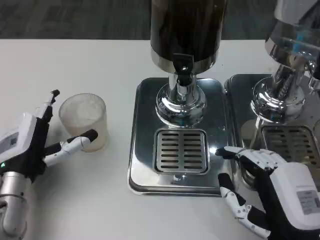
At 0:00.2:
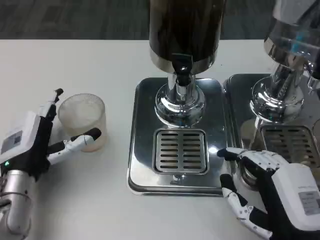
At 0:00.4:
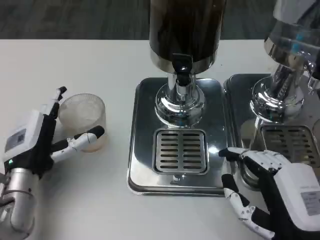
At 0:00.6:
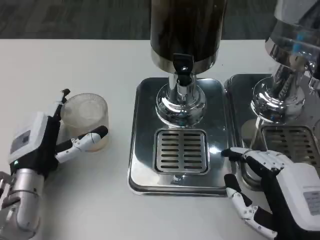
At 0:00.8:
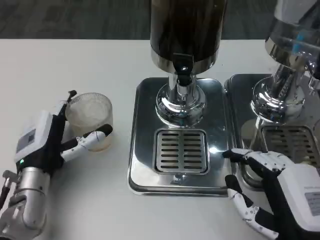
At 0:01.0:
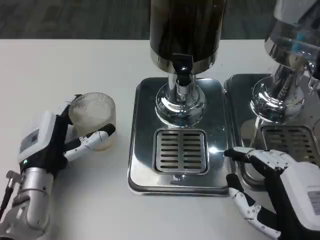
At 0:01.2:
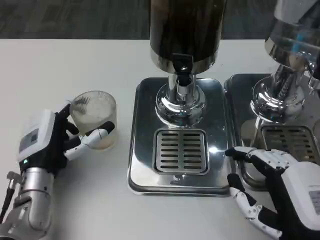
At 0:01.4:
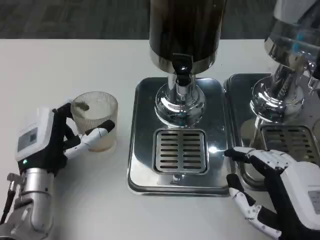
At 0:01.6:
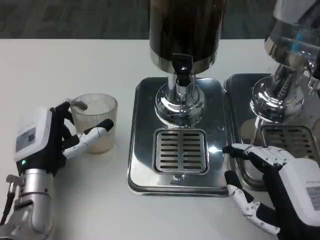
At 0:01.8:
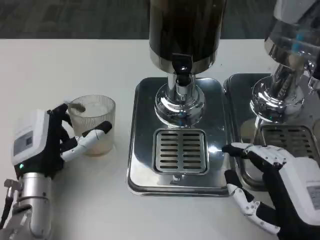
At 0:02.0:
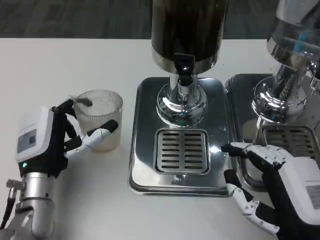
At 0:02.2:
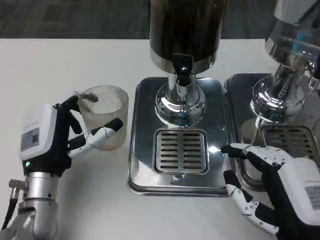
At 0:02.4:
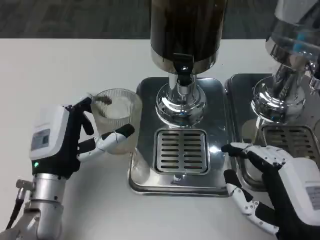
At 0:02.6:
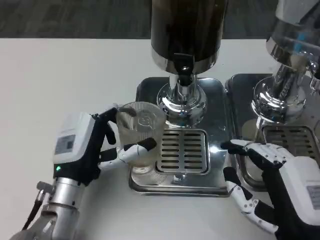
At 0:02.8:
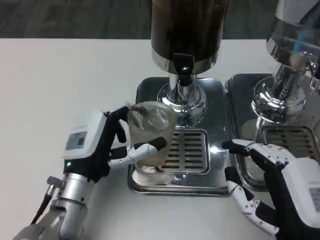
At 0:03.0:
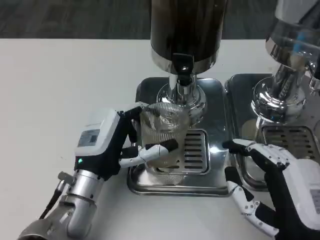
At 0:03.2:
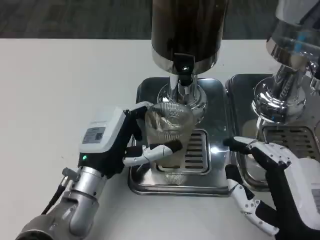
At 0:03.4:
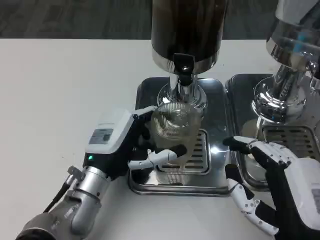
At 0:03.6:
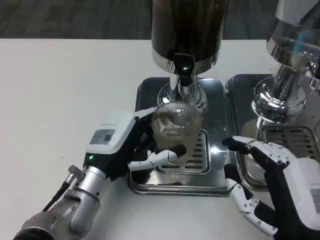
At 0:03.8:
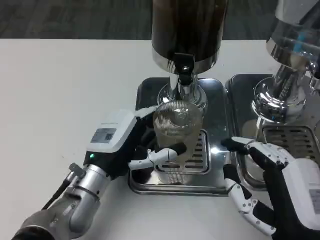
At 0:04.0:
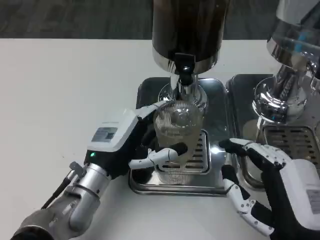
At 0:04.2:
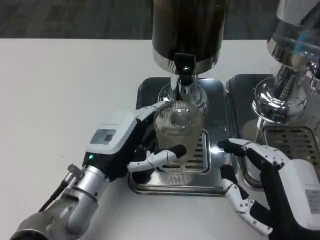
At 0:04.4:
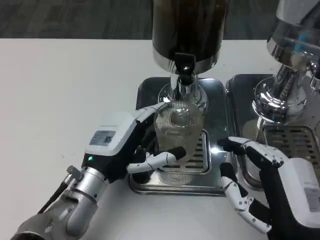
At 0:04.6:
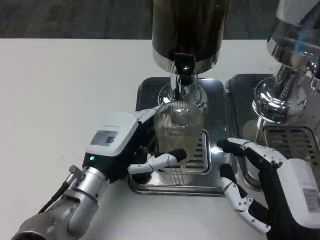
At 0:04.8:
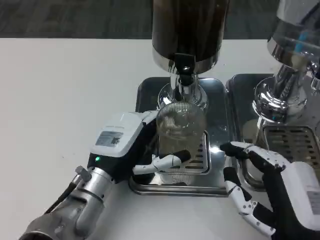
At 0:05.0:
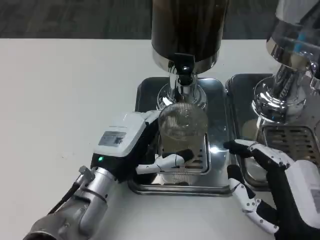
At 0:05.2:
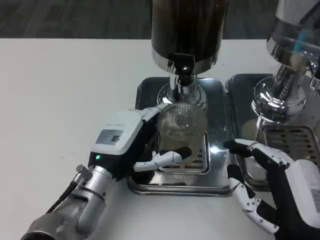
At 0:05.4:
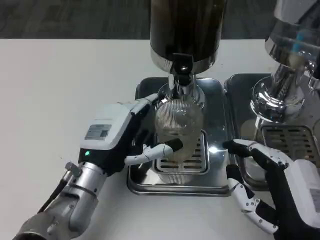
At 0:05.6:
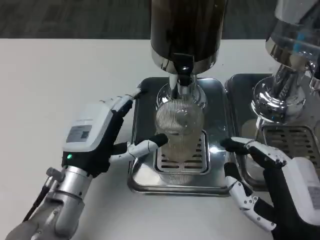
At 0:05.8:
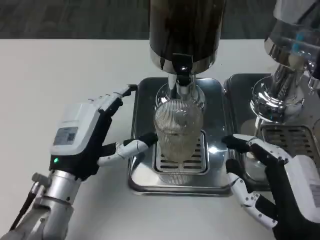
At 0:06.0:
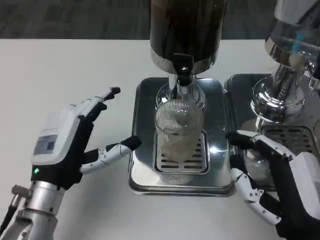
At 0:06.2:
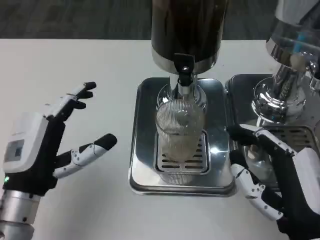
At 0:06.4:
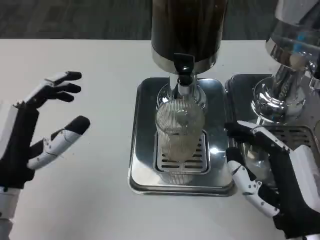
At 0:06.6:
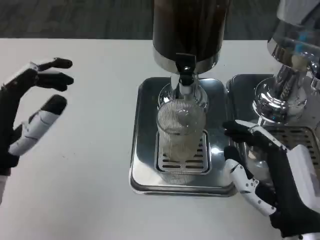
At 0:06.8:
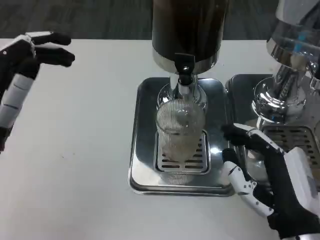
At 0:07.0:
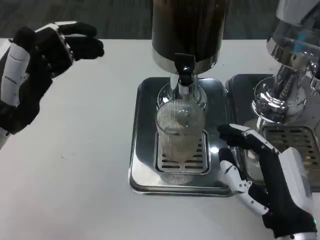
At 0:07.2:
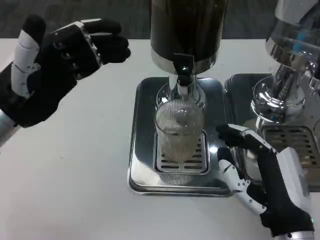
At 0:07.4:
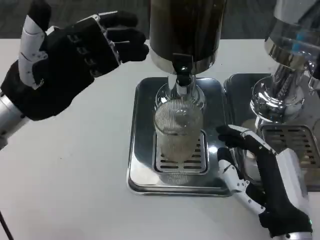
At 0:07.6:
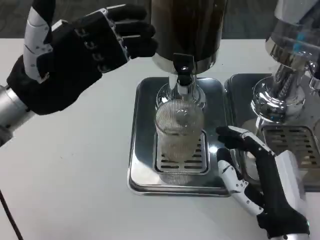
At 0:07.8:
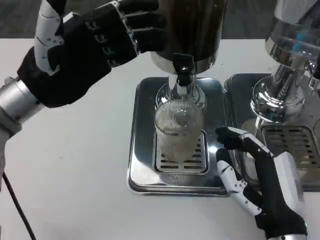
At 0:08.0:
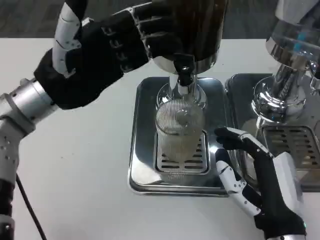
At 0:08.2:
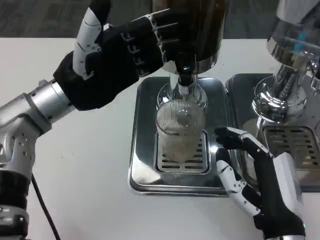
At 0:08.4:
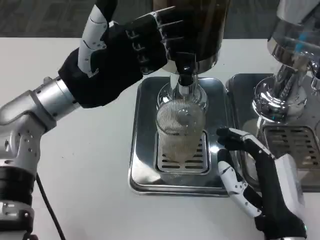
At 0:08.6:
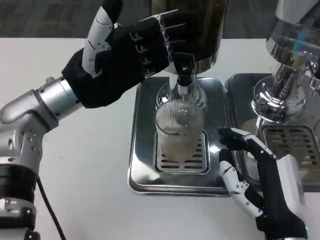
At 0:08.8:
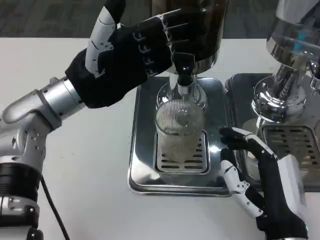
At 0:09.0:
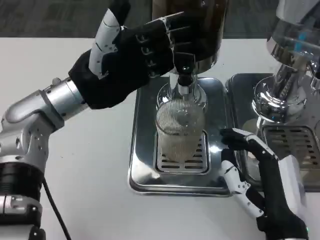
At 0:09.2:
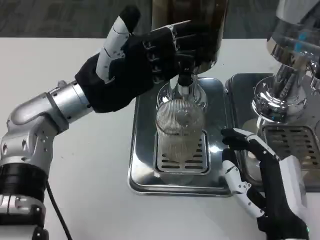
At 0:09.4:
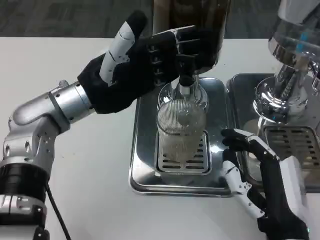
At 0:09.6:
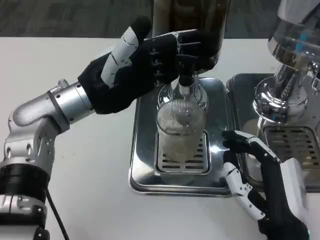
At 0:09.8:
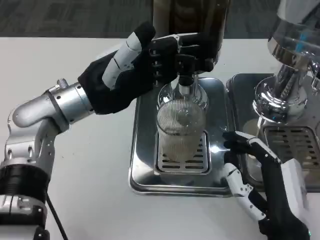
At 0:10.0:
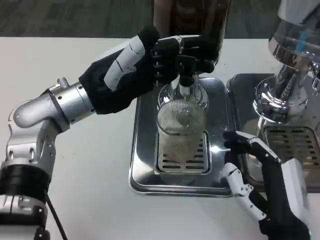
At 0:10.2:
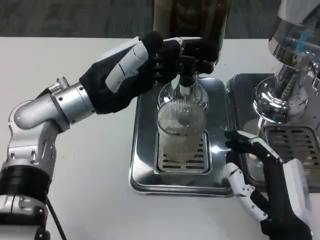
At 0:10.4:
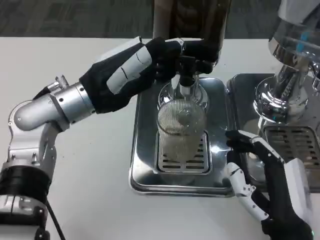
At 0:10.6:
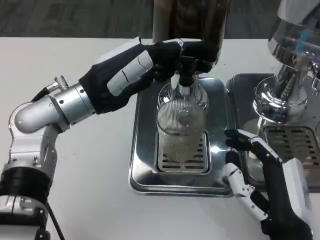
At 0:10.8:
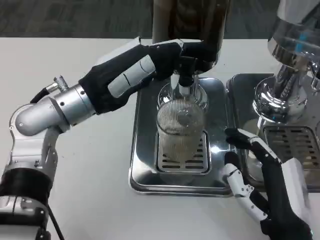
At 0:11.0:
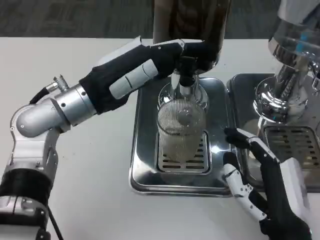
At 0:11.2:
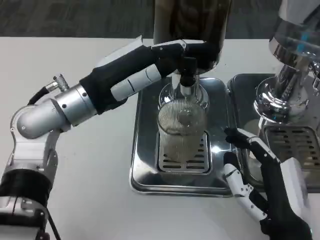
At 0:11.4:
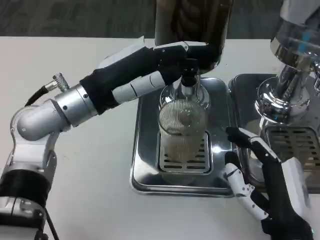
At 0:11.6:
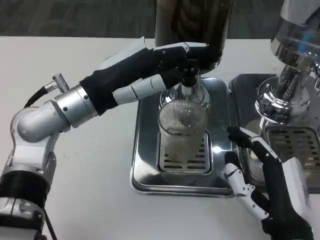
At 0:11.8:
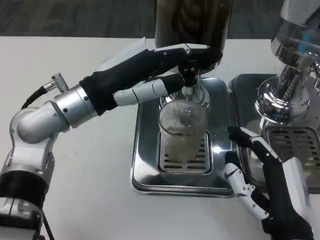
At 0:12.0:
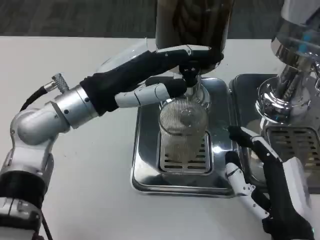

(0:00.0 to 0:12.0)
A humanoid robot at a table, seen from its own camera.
Task of the whole recording: Grasp the cup under the faucet to collect the drink, then remove the cup.
0:01.6 - 0:03.0: The left hand moves to the right, some 5 cm.
0:03.0 - 0:04.4: The hands make only small movements.
0:04.4 - 0:06.0: The left hand changes place by about 5 cm.
0:06.0 - 0:07.6: The left hand is displaced upward and forward by approximately 15 cm.
0:07.6 - 0:09.0: The left hand is displaced to the right by about 5 cm.

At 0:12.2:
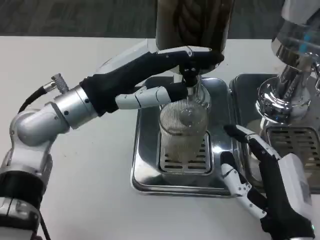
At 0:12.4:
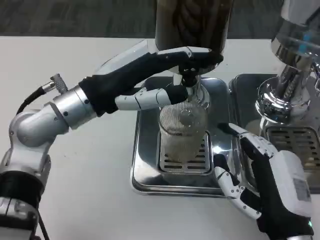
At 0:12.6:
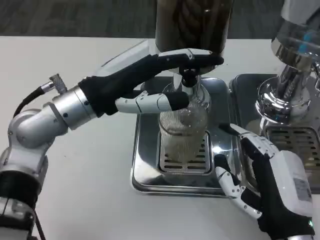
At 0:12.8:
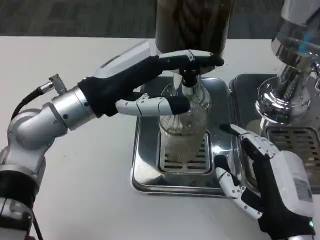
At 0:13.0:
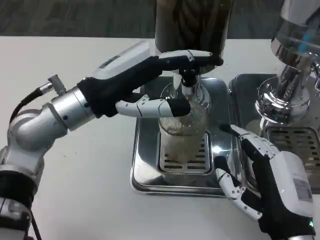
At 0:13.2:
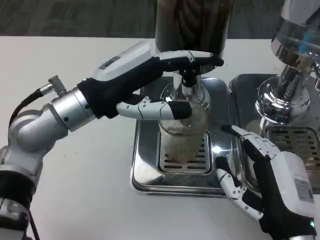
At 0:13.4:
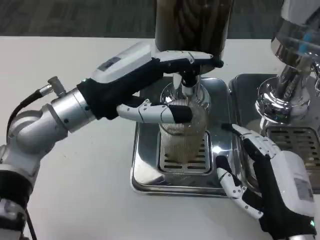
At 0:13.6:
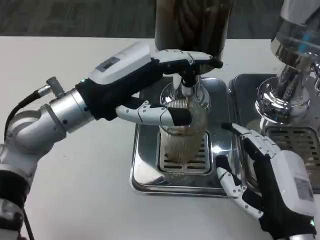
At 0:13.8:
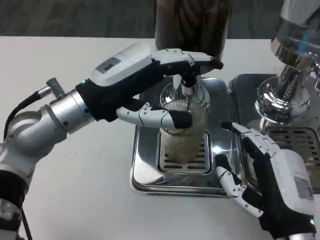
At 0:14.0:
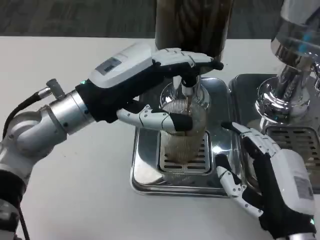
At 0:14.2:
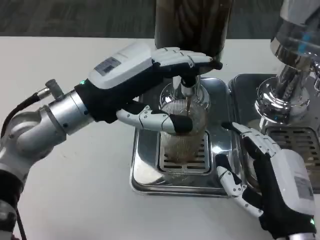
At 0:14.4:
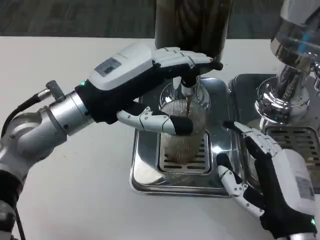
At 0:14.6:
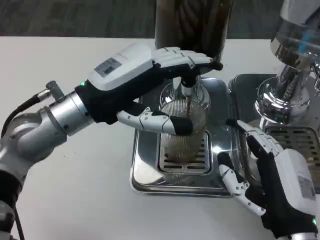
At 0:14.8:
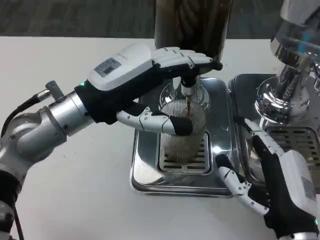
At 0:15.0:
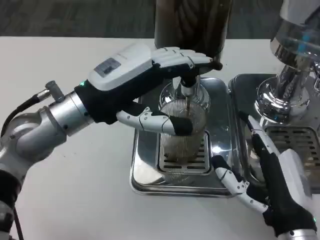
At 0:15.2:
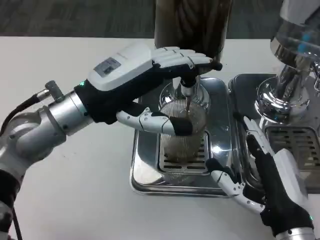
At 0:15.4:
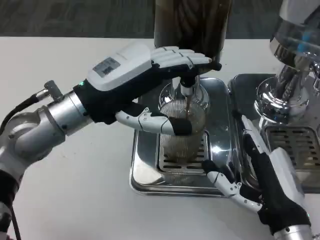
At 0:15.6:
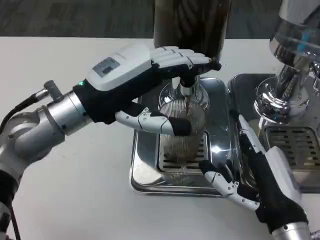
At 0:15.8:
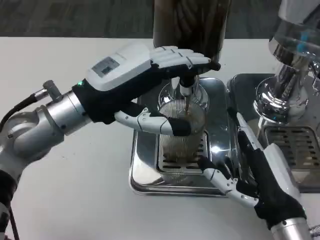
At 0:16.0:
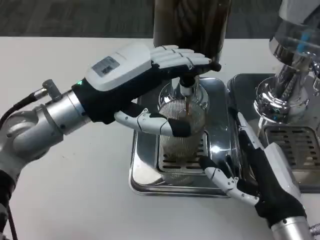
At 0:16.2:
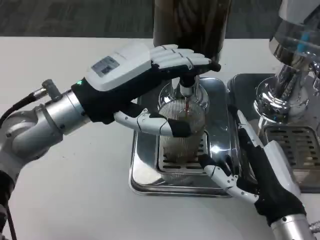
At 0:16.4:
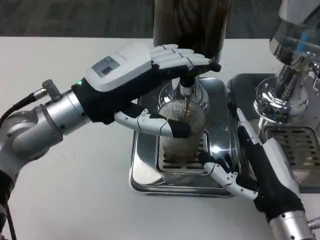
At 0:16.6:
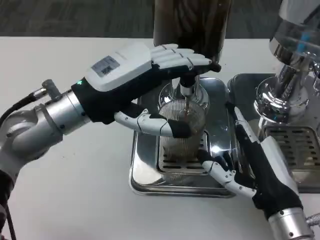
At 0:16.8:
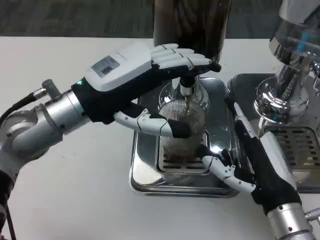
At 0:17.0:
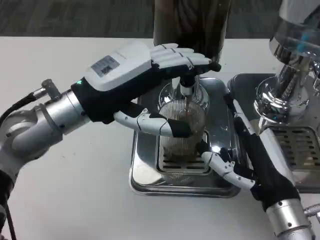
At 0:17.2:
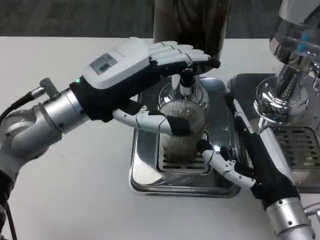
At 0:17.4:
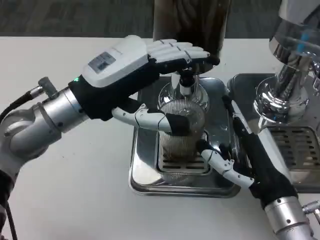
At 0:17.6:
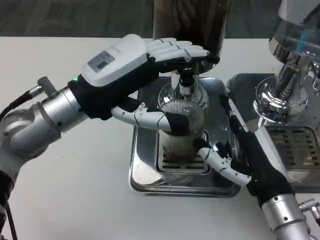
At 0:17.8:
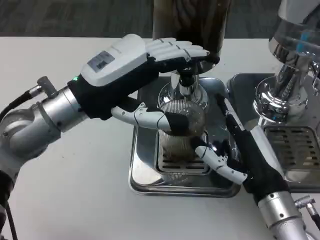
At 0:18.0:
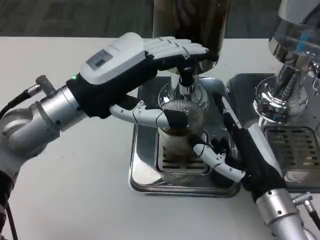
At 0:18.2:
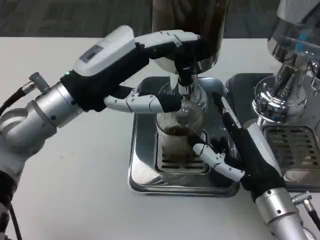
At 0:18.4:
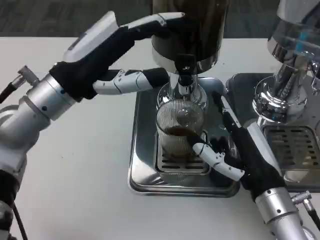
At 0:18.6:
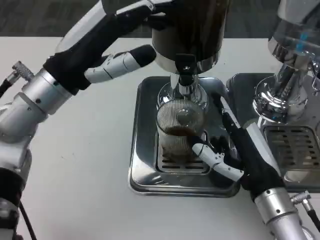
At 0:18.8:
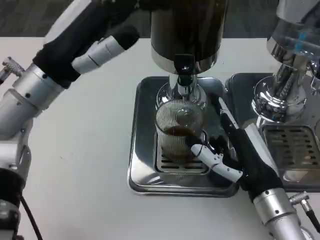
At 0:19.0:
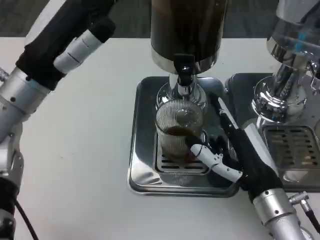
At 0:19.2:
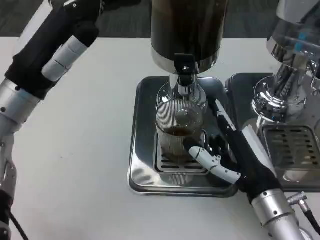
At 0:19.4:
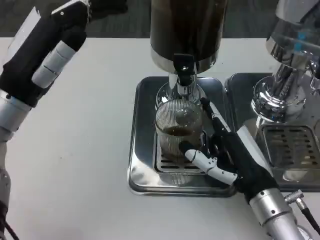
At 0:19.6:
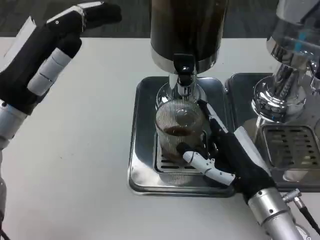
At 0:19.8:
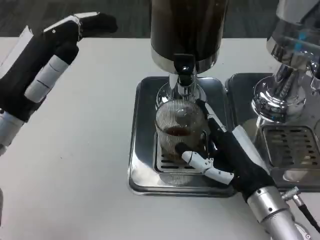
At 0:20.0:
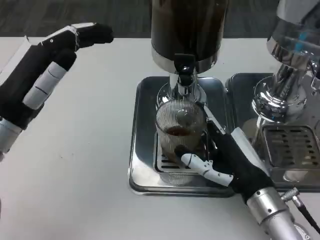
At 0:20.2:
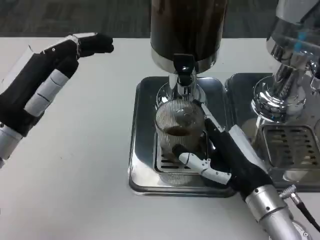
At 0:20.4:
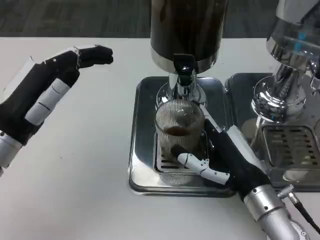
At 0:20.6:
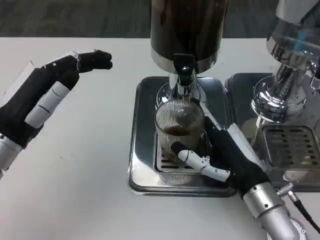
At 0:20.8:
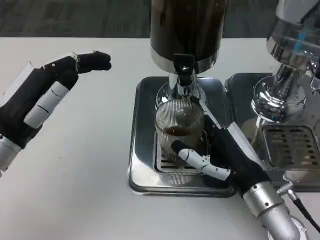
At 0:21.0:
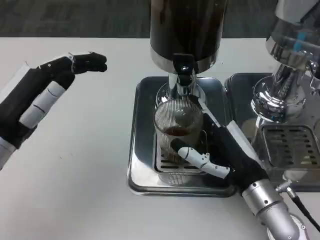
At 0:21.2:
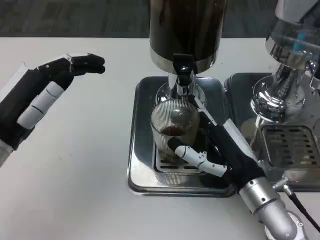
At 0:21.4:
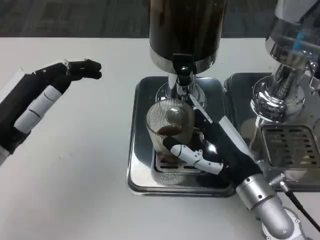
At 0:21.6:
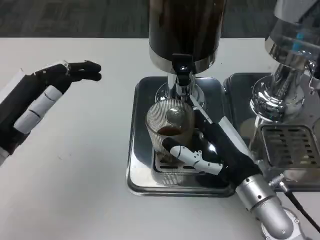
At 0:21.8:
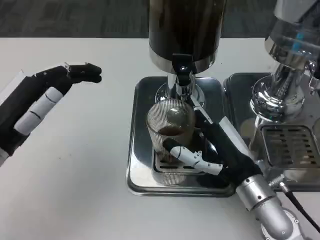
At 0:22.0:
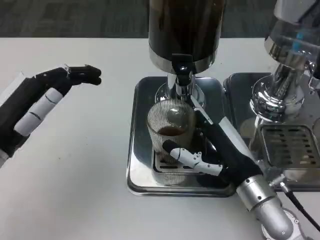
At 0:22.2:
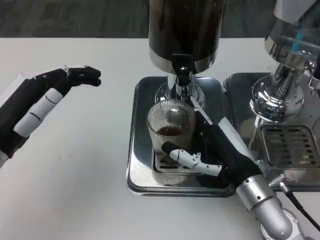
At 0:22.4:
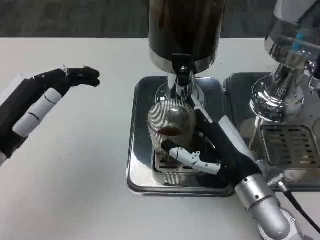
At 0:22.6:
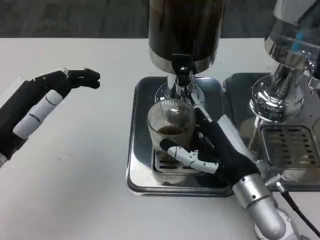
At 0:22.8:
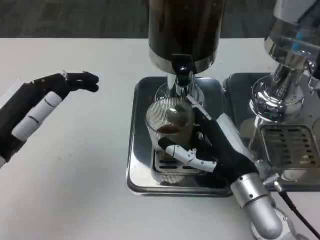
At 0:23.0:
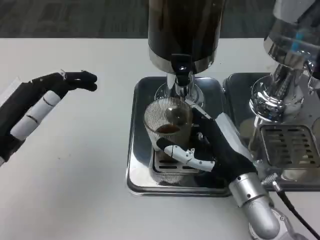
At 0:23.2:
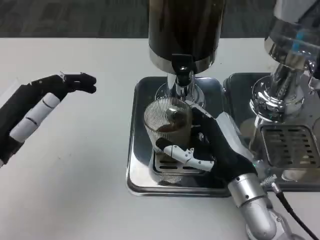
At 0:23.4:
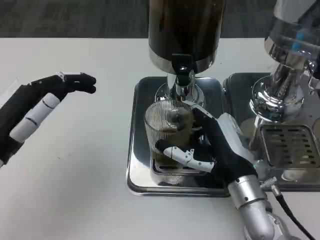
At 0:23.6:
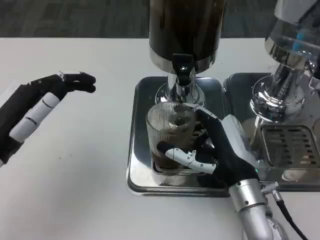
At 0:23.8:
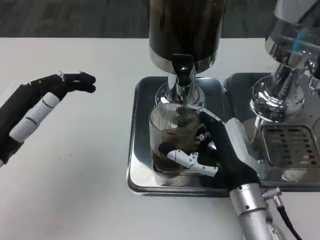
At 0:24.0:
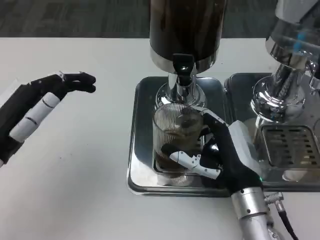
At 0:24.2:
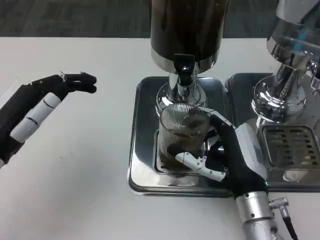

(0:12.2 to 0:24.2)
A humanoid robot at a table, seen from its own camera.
Task of the whole recording: Grasp the cup under the faucet to collect the drink, then remove the cup.
0:13.8 - 0:16.6: The hands move only a little.
0:18.2 - 0:19.8: The left hand heads to the left, covering about 5 cm.
0:19.8 - 0:24.2: The hands stay close to where they were, moving slightly.
